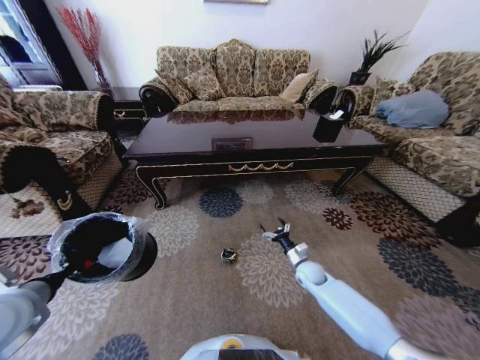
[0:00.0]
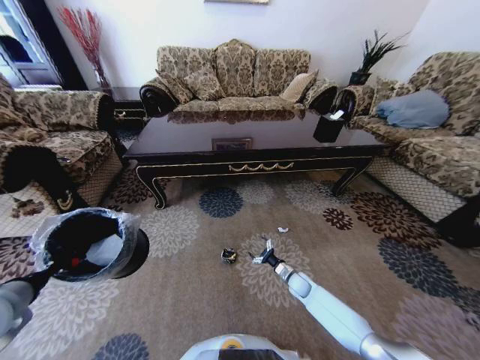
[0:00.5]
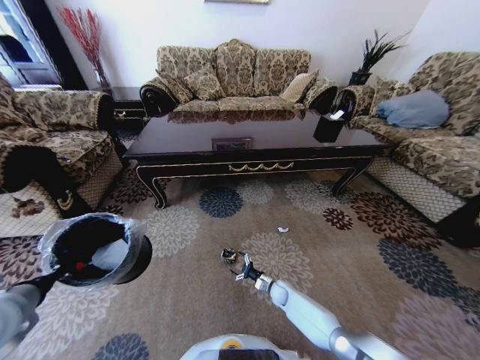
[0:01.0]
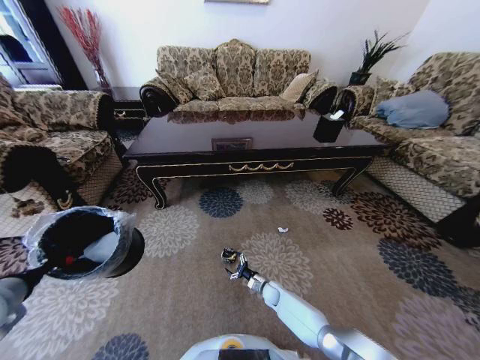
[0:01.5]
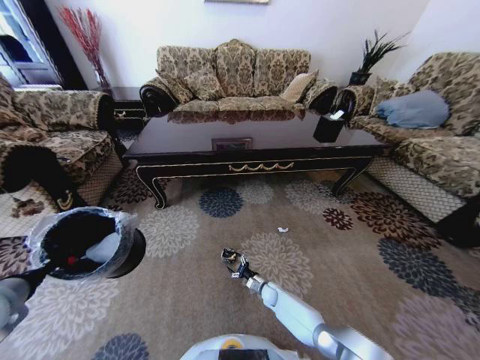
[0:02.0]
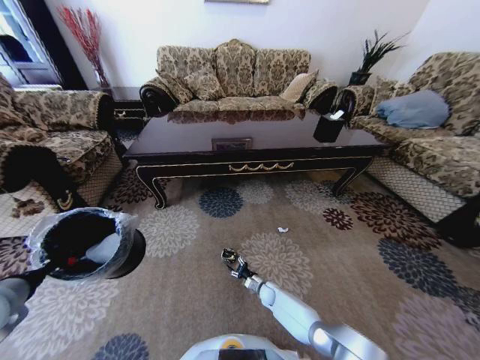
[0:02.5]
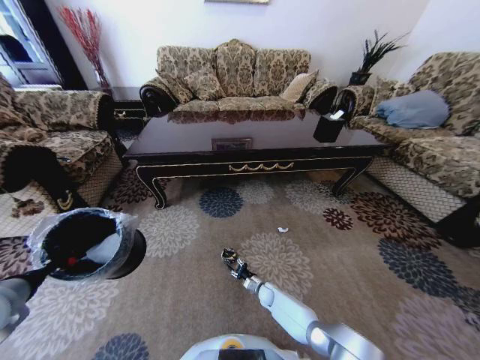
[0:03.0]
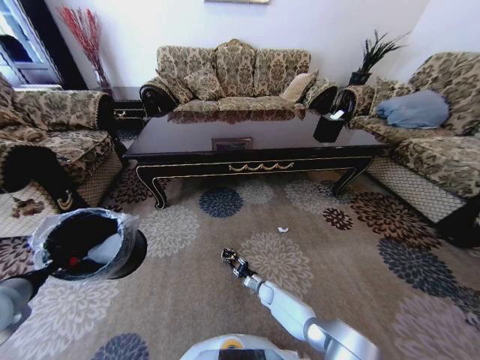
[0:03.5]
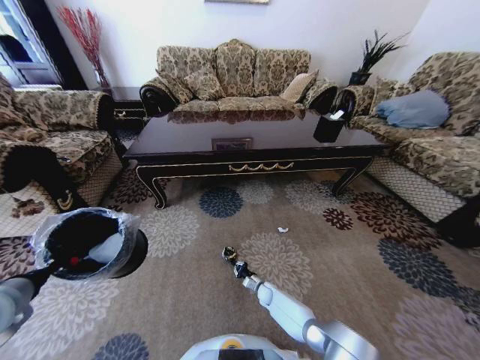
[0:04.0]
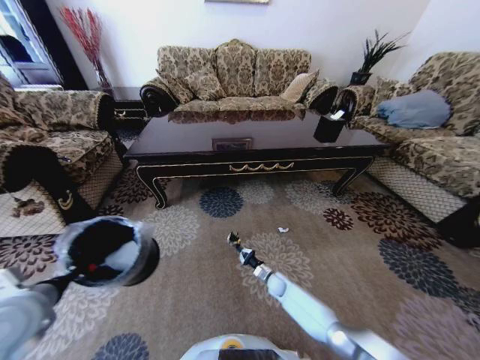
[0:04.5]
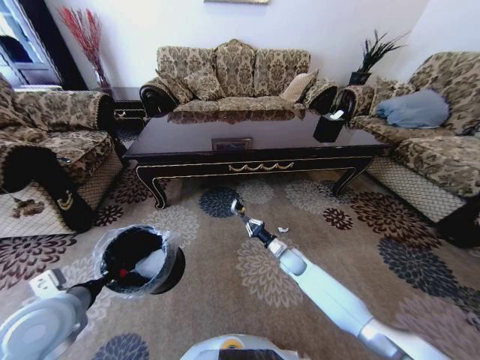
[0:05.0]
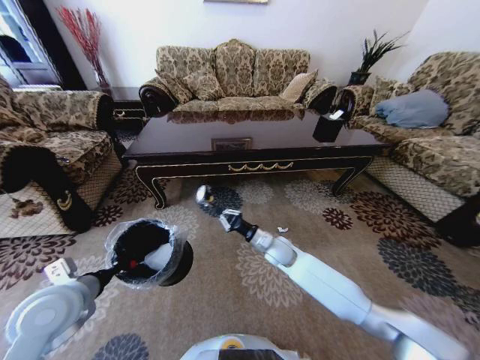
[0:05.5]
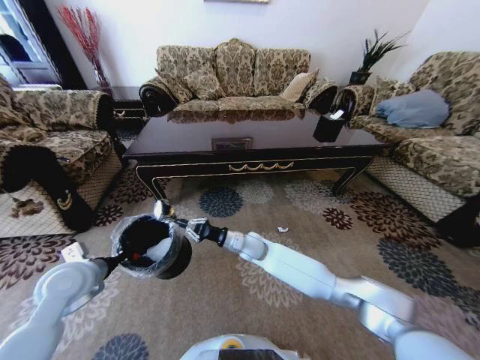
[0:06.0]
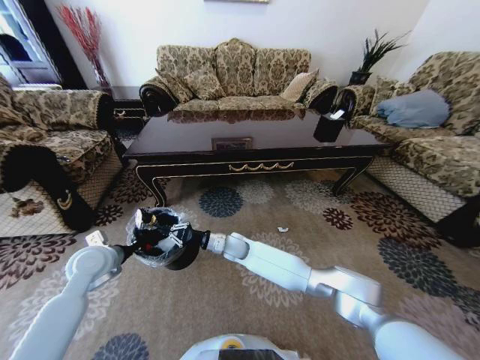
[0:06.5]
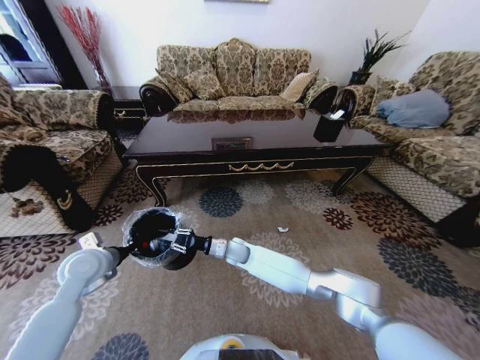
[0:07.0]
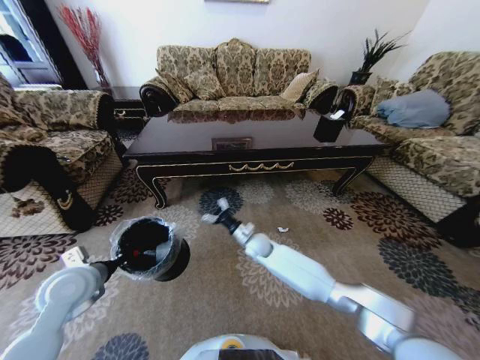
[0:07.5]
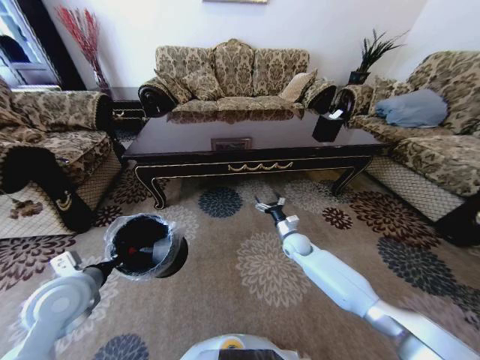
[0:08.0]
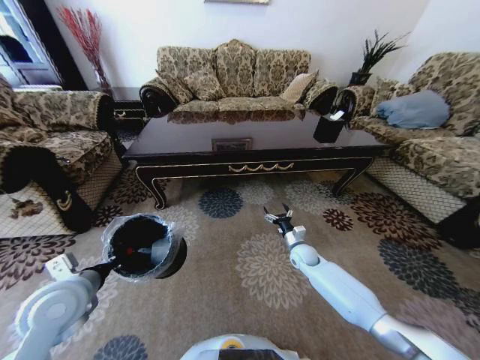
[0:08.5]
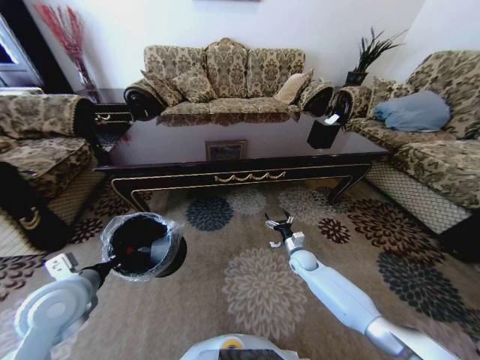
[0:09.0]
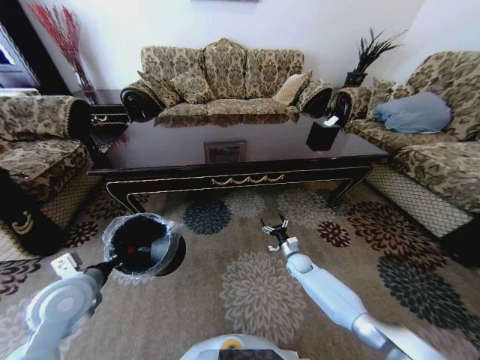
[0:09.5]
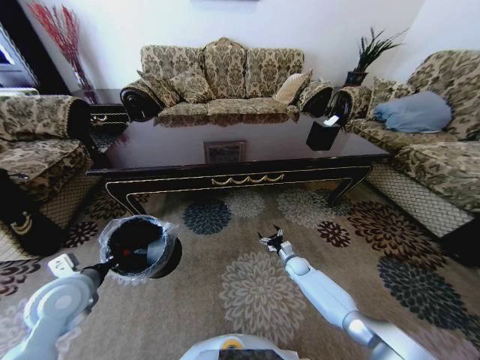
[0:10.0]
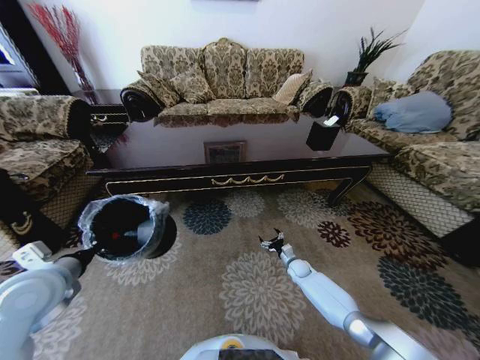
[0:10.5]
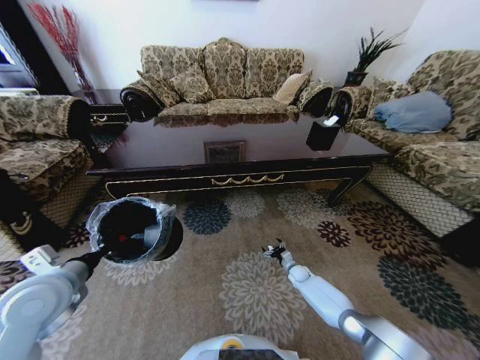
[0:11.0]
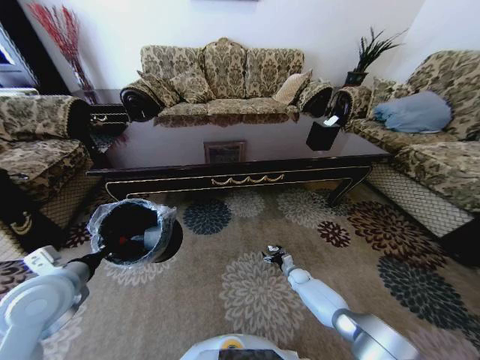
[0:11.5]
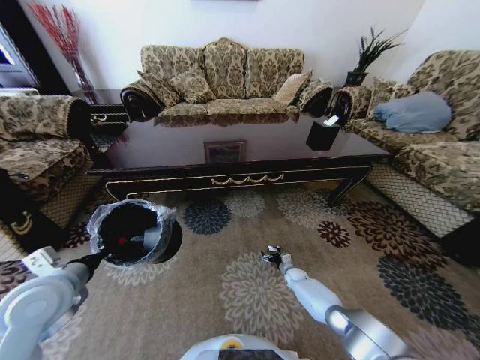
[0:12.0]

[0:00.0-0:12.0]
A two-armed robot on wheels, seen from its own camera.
Task of the whole recording: Move to the front of the table and pick up the trash from the floor, then place it into the trash bin.
0:00.0 to 0:02.0: The right gripper moves downward and to the left, about 20 cm.
0:02.0 to 0:04.0: The right gripper closes its fingers.
0:04.0 to 0:06.0: The right gripper shifts approximately 30 cm upward; the left gripper travels forward, downward and to the right by some 15 cm.
0:06.0 to 0:08.0: The left gripper ends up roughly 5 cm from where it was, while the right gripper travels to the right by some 20 cm, and opens up.
0:08.0 to 0:10.0: The right gripper moves downward, approximately 15 cm.
0:10.0 to 0:12.0: The left gripper moves approximately 5 cm; the right gripper heads downward, covering some 10 cm.

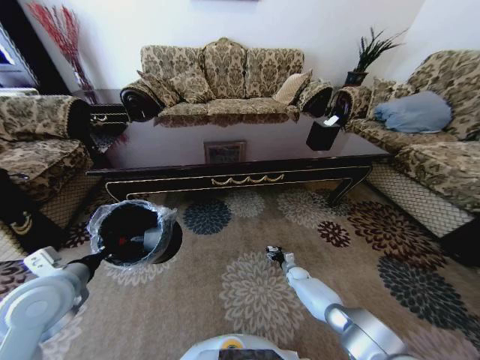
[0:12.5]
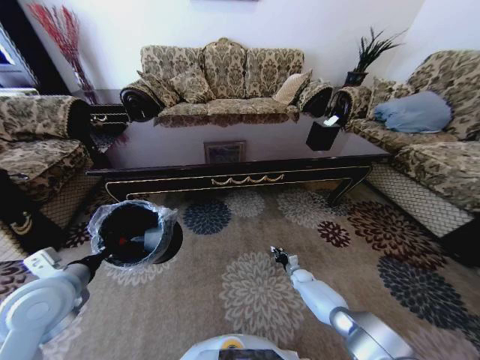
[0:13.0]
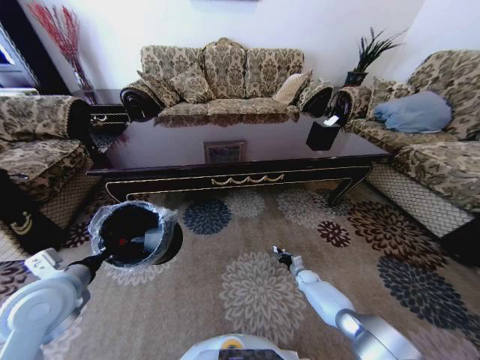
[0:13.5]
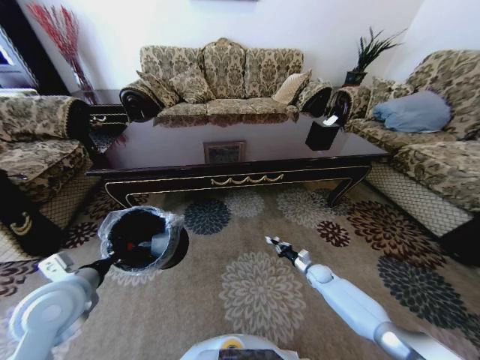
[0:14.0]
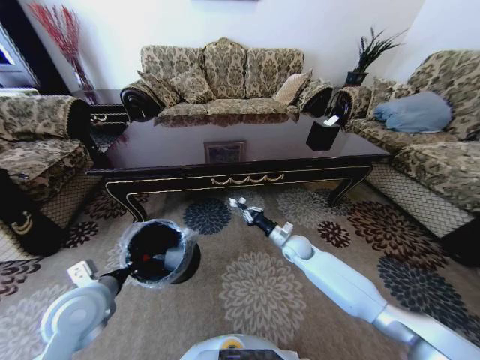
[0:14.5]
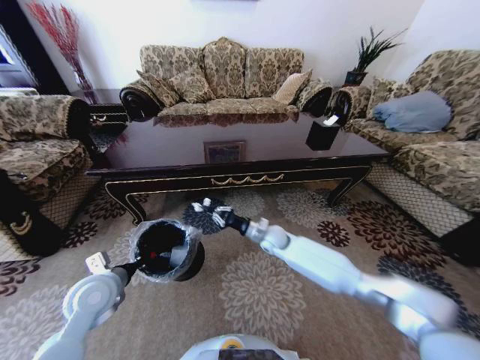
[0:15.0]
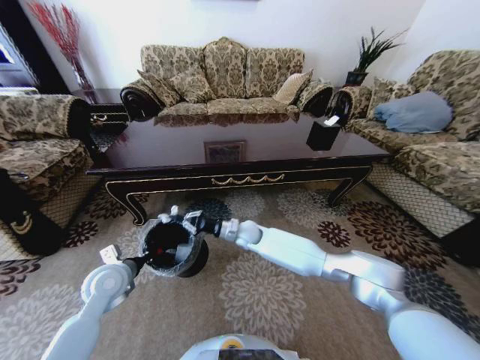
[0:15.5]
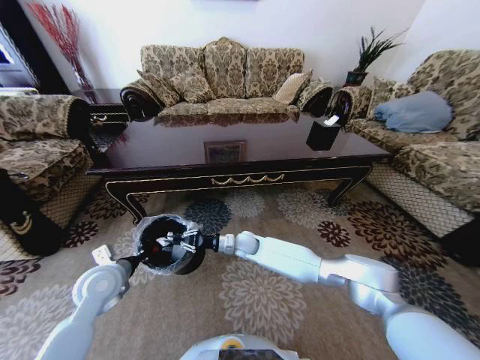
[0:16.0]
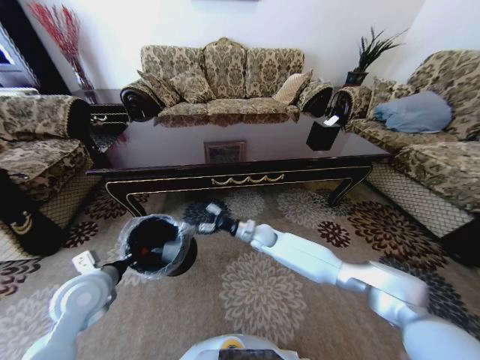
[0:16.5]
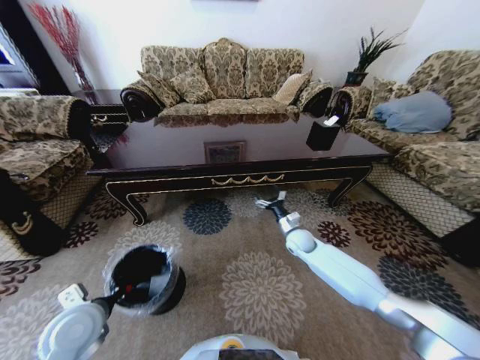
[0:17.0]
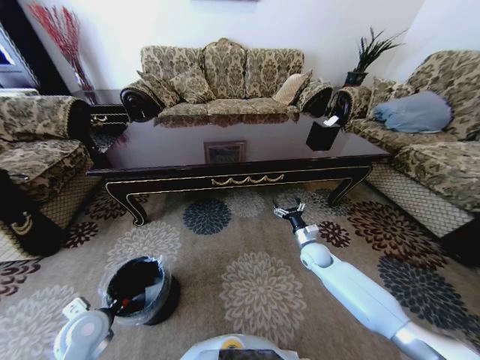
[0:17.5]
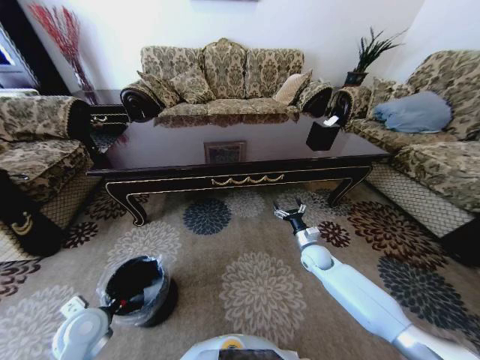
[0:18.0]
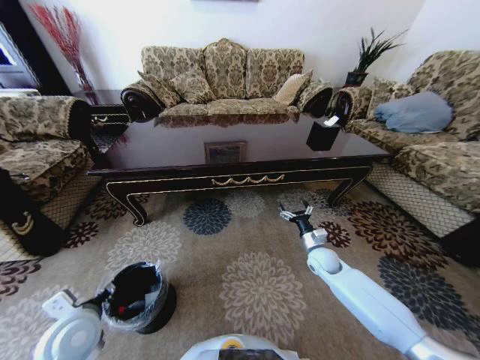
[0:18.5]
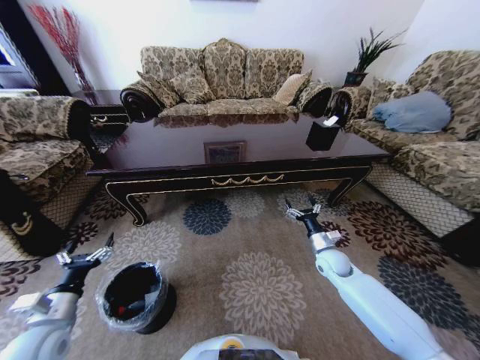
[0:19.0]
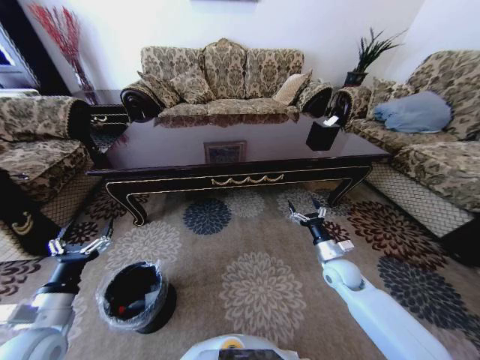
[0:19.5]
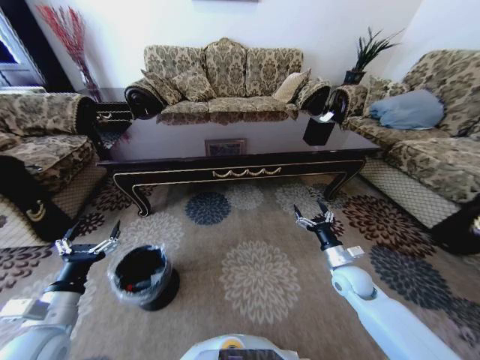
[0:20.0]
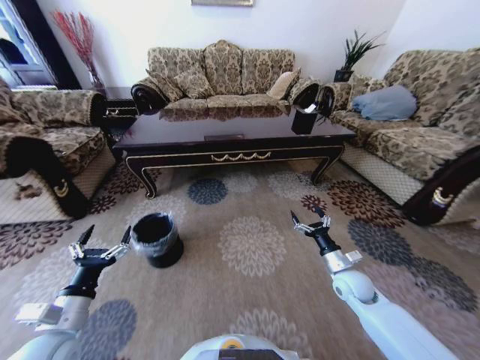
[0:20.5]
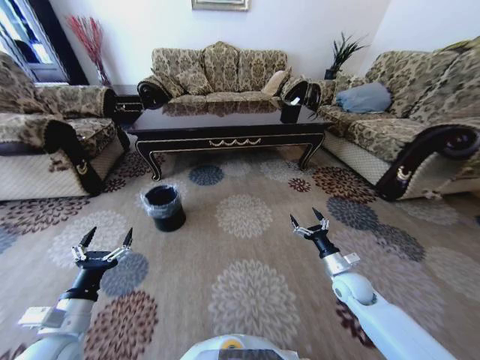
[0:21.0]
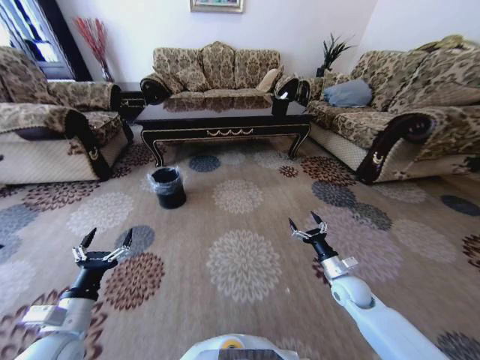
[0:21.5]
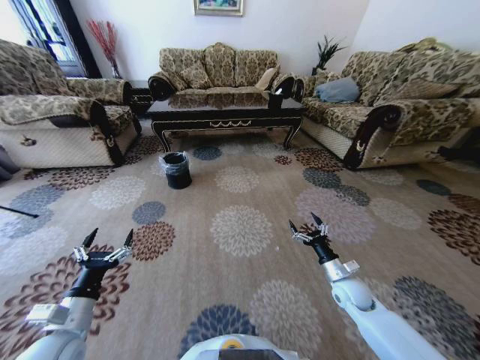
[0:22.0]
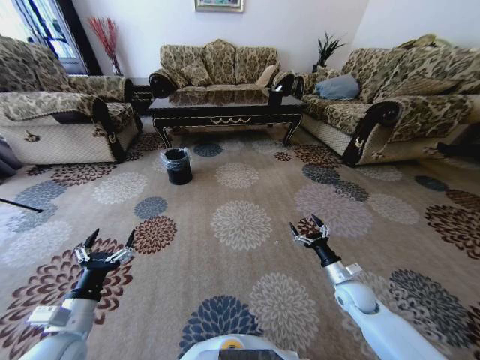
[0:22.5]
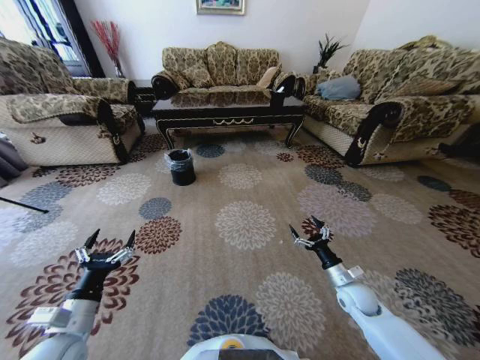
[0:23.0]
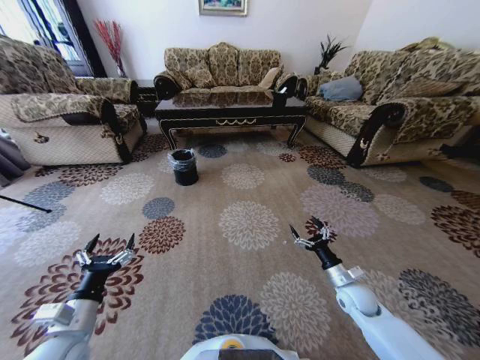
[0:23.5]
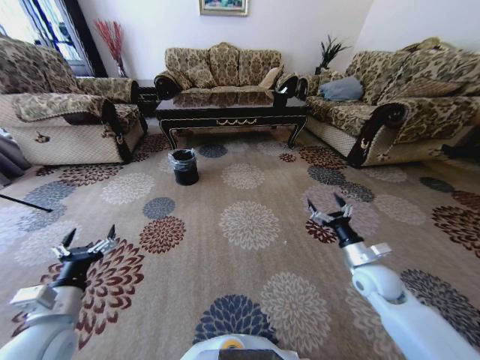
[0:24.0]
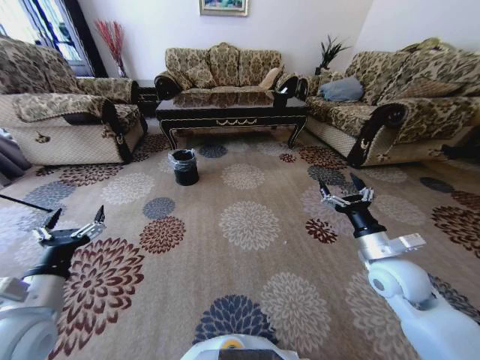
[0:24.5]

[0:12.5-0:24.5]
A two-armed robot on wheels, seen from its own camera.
Task of the whole recording: Move to the front of the table and pick up the trash from the floor, then place it into the trash bin.
0:12.5 to 0:14.5: The left gripper ends up roughly 5 cm from where it was. Meanwhile the right gripper heads upward, covering about 25 cm, and closes its fingers.
0:14.5 to 0:16.5: The right gripper goes approximately 10 cm to the left, and opens its fingers.
0:16.5 to 0:18.5: The right gripper heads to the right, covering some 20 cm, and opens up, while the left gripper moves backward, roughly 5 cm, and opens up.
0:18.5 to 0:20.5: The right gripper travels backward by roughly 10 cm, while the left gripper goes to the left and returns, approximately 10 cm each way.
0:22.5 to 0:24.5: The right gripper is displaced upward by about 20 cm; the left gripper travels upward by roughly 10 cm.

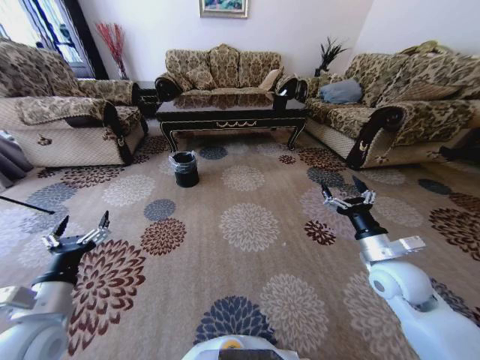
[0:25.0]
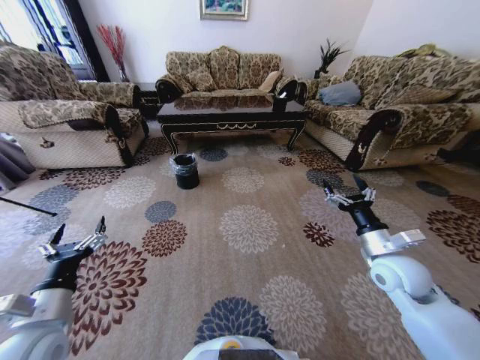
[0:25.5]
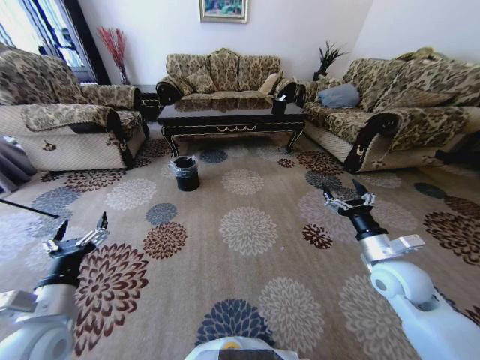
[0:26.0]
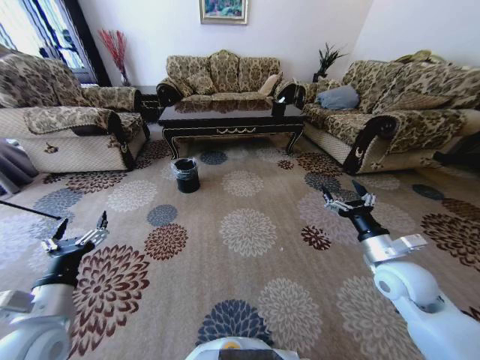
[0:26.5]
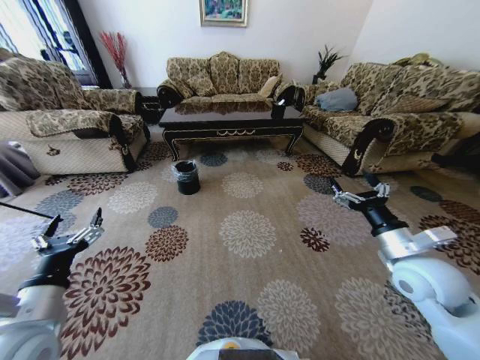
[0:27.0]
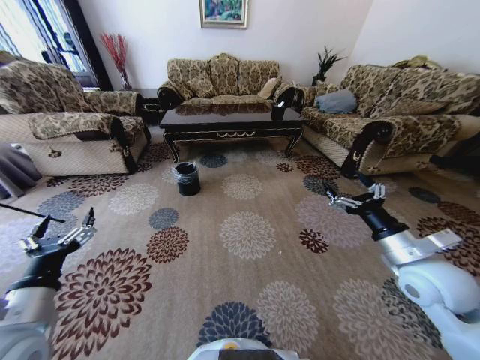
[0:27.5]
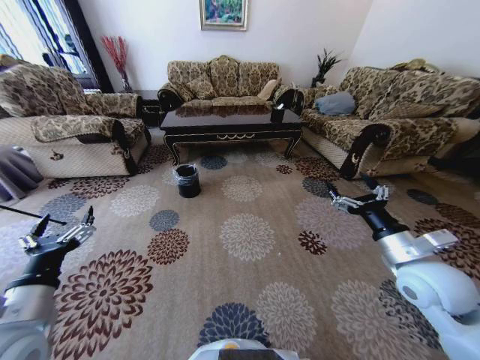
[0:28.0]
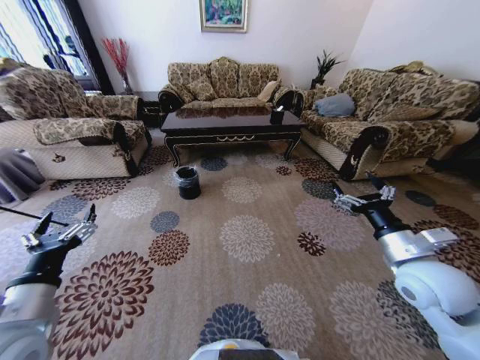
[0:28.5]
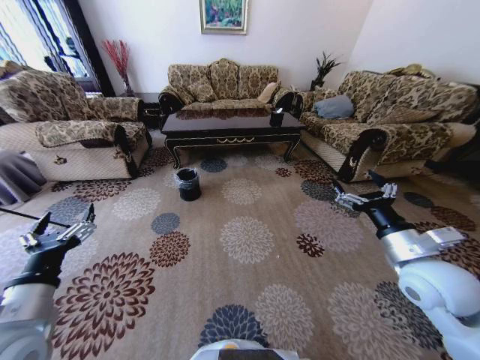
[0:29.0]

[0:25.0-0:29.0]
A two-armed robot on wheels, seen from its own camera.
Task of the whole recording: Move to the front of the table and pick up the trash from the floor, then place it into the trash bin.
0:25.0 to 0:27.0: The right gripper ends up some 5 cm from where it was.
